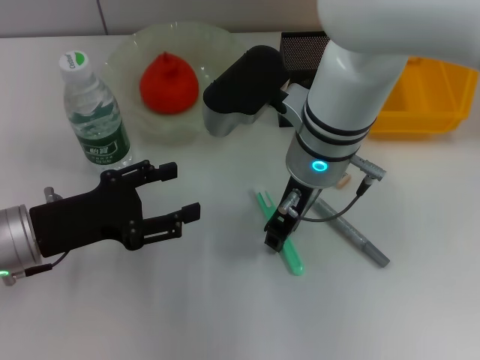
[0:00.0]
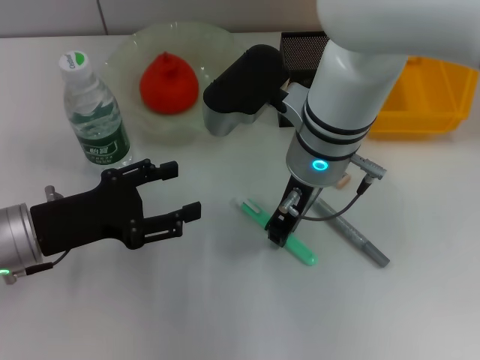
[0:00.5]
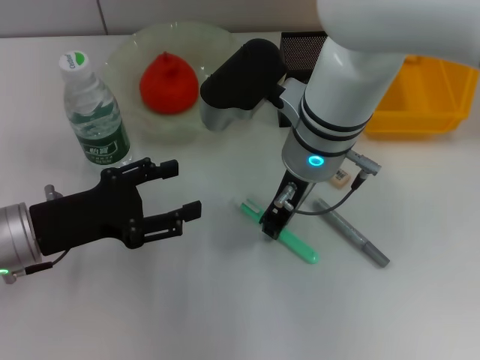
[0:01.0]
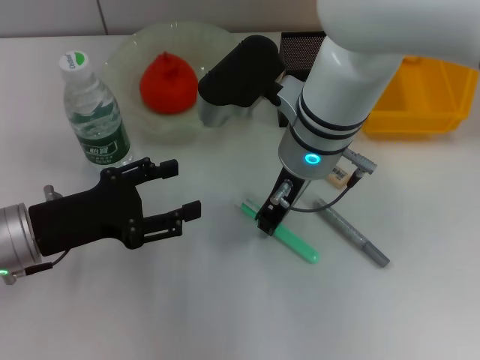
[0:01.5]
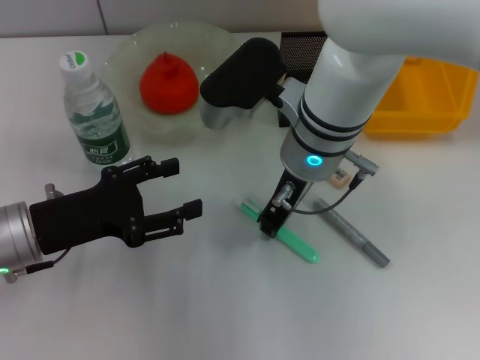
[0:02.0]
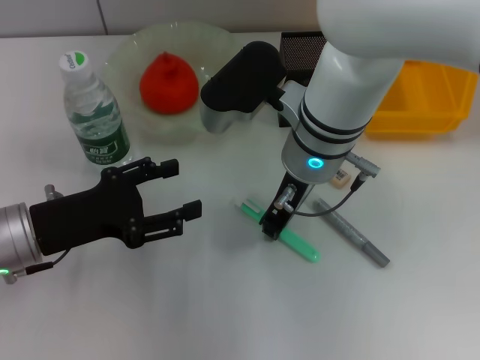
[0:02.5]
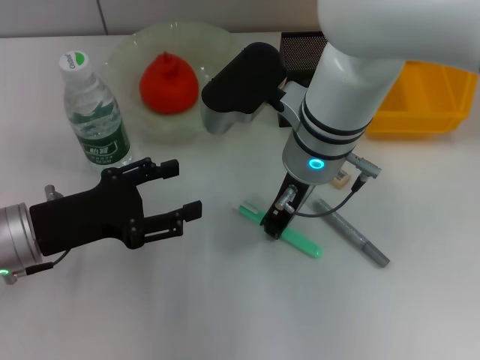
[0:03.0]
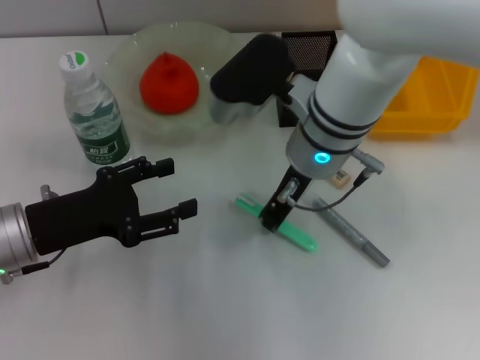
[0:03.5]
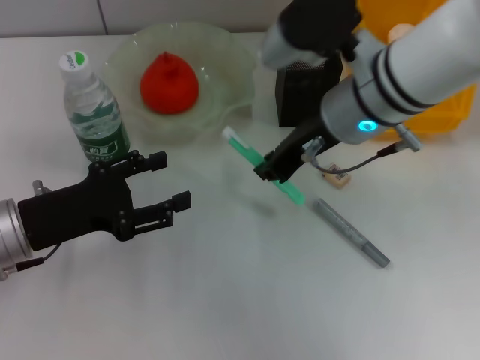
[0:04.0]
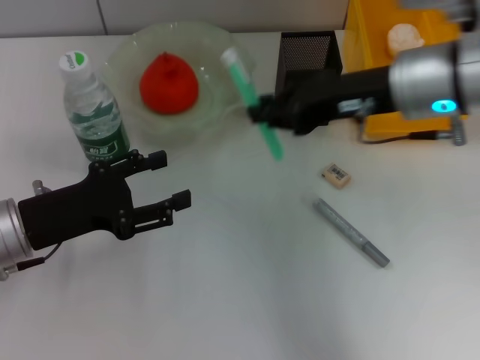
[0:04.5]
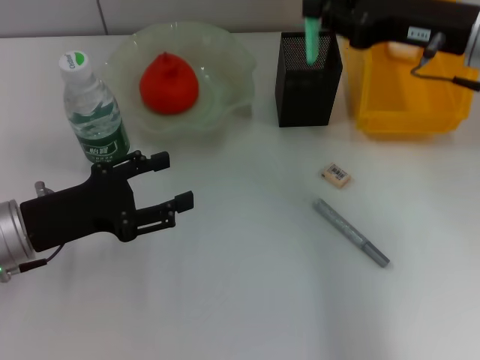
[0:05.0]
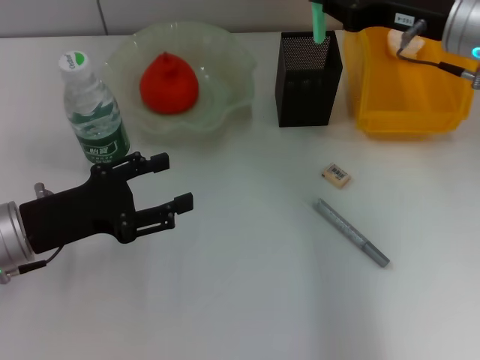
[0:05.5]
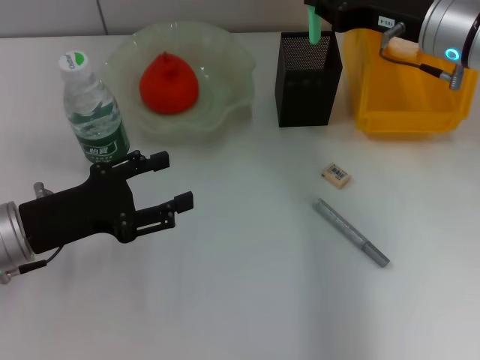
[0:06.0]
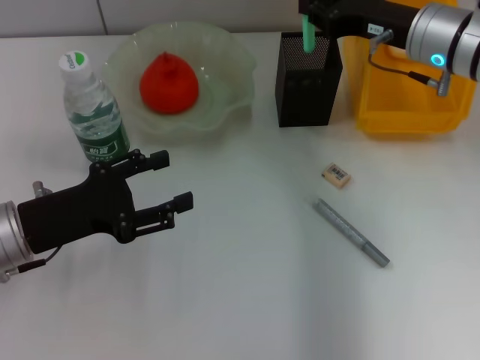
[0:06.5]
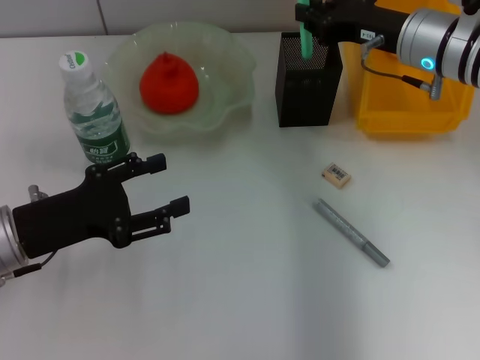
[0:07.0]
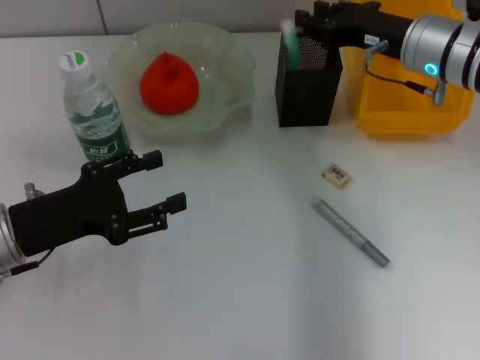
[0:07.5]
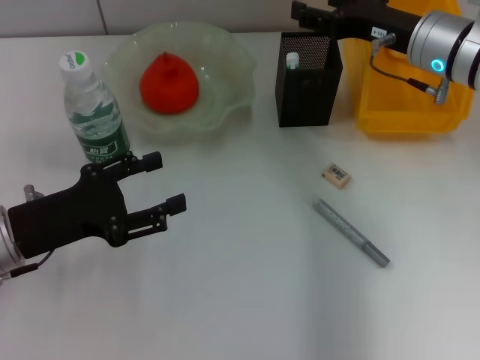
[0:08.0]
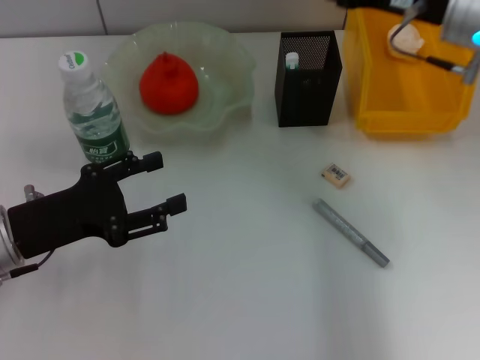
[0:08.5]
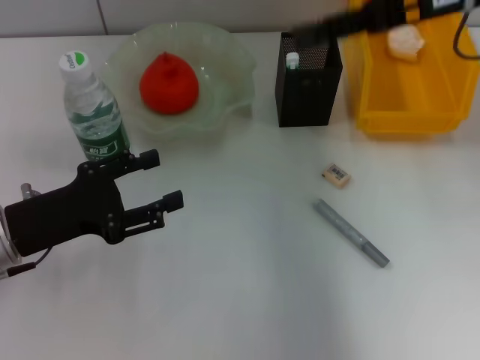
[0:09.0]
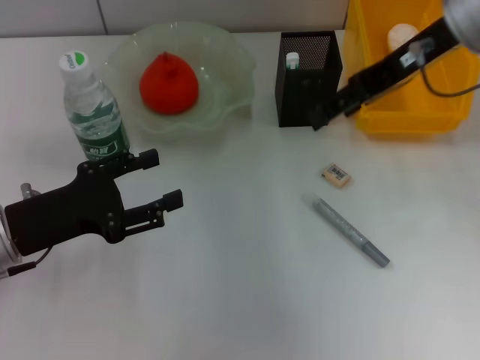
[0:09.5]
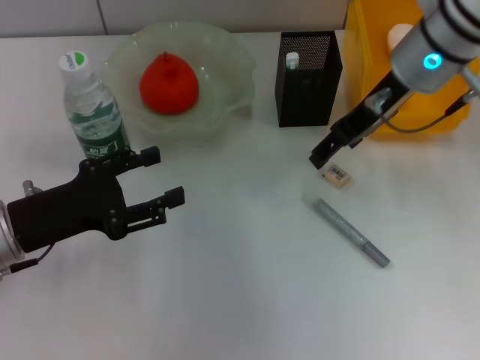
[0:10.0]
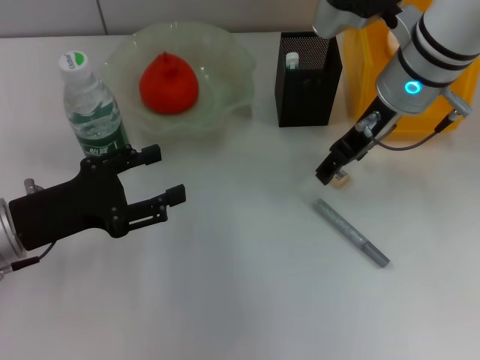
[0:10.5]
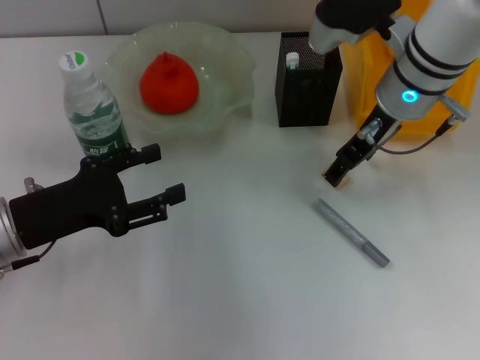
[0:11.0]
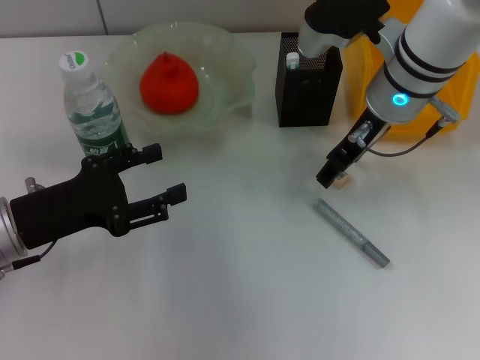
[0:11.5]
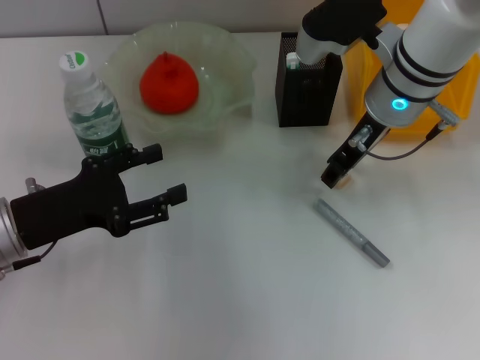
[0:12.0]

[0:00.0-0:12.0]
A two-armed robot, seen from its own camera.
Step, 0:00.0 to 0:03.0: Grab the blue utility knife with the right hand.
Step, 0:03.5 to 0:07.5: Place the blue utility knife into the pen holder with the right hand.
0:00.0 to 0:02.0: Both grippers stay about where they are.
0:02.0 to 0:04.0: The right gripper heads to the right, covering some 5 cm.
0:04.0 to 0:06.0: The right gripper is displaced to the right and forward by about 10 cm.
0:06.0 to 0:08.0: The right gripper opens its fingers.
0:08.0 to 0:10.0: The right gripper shifts about 5 cm upward.
0:10.0 to 0:12.0: The right gripper closes.

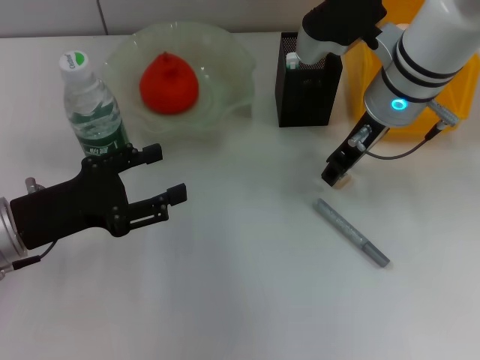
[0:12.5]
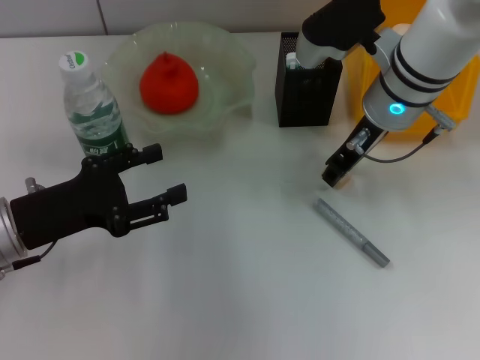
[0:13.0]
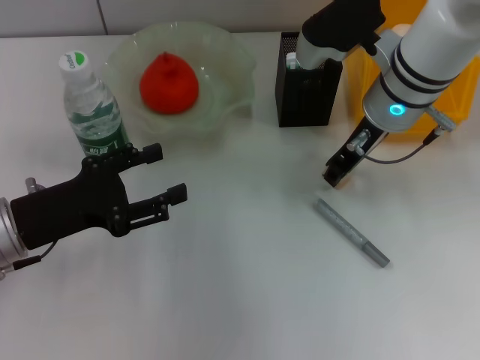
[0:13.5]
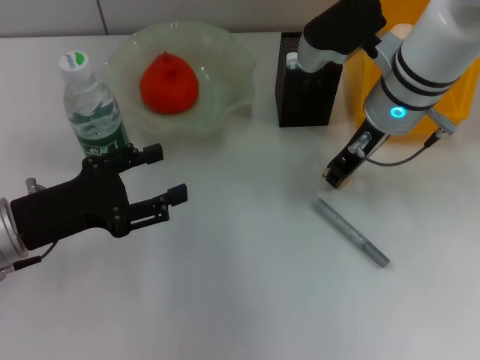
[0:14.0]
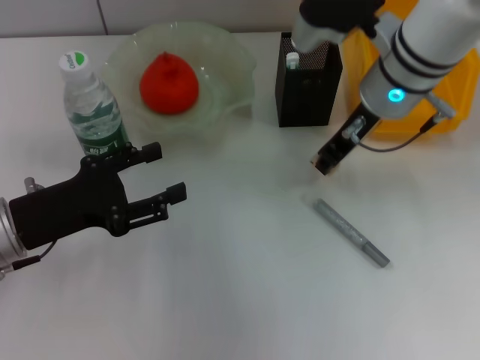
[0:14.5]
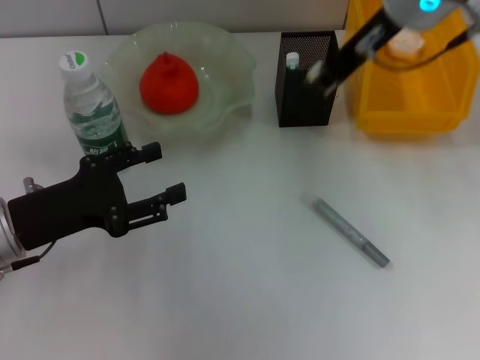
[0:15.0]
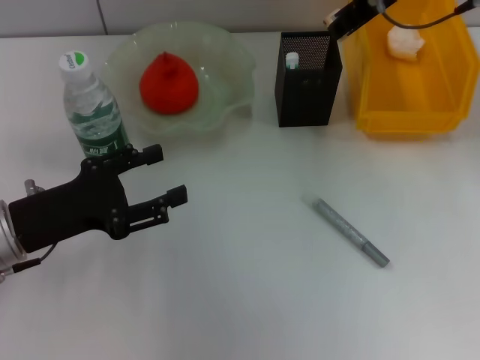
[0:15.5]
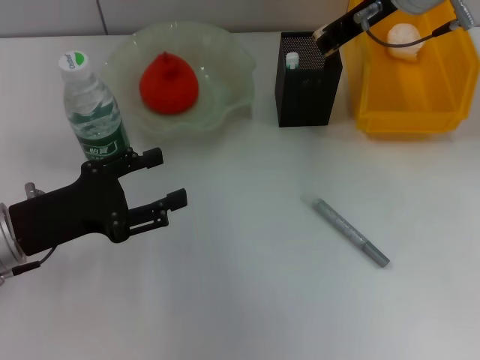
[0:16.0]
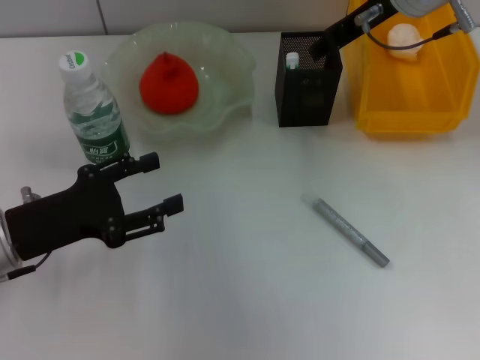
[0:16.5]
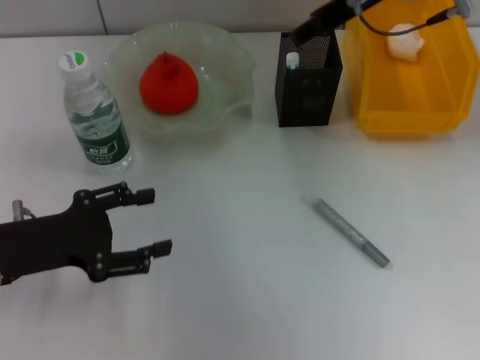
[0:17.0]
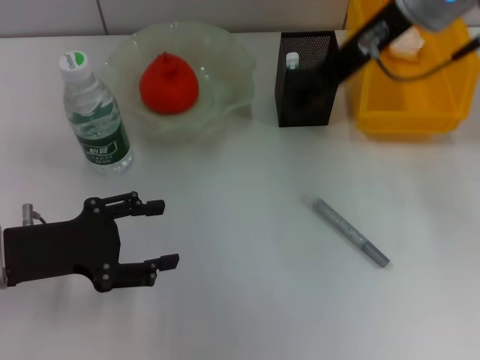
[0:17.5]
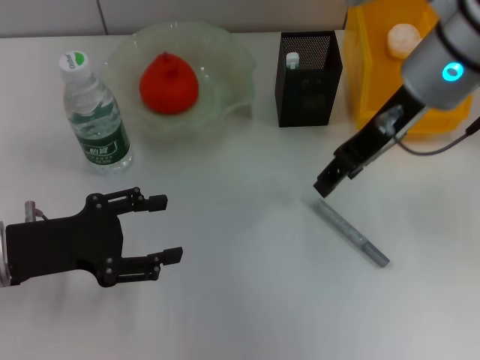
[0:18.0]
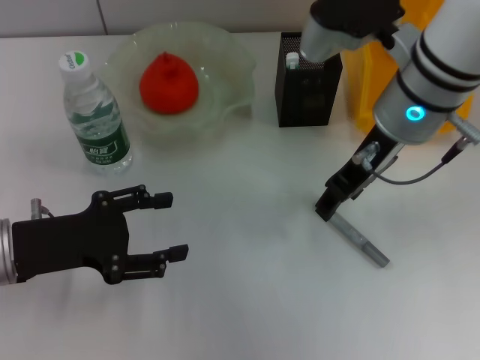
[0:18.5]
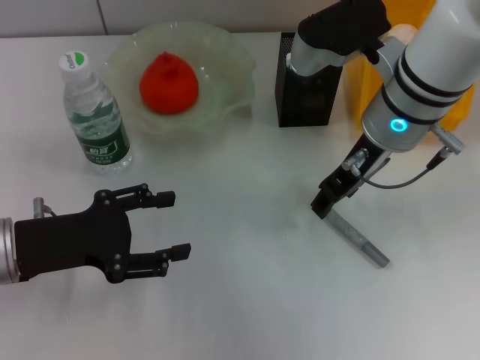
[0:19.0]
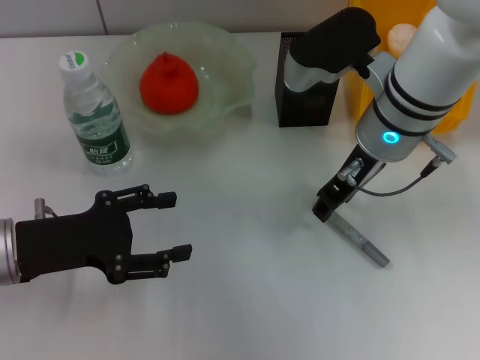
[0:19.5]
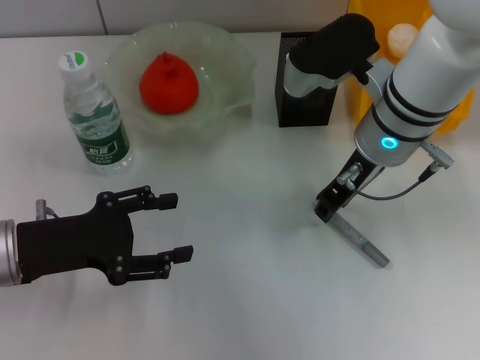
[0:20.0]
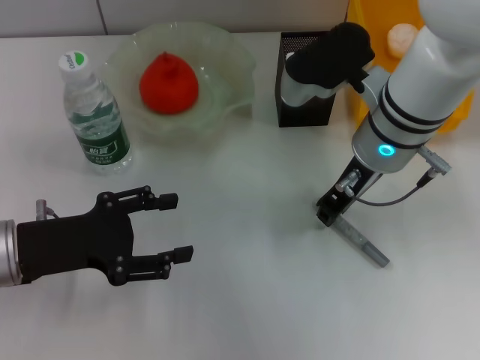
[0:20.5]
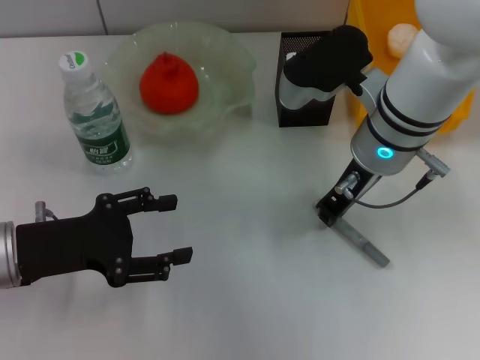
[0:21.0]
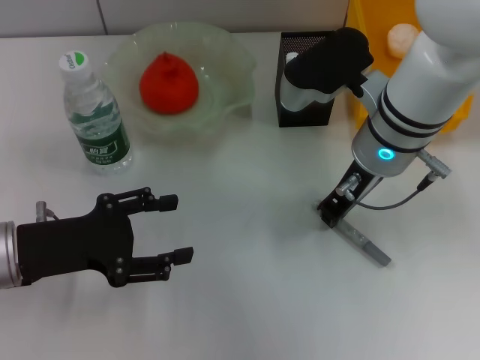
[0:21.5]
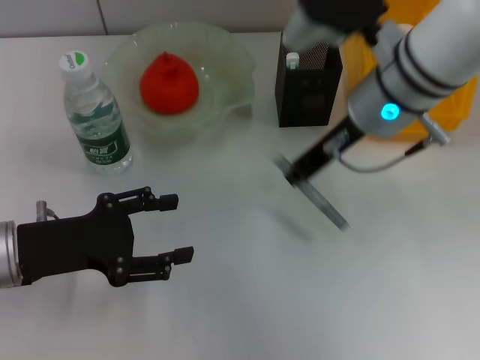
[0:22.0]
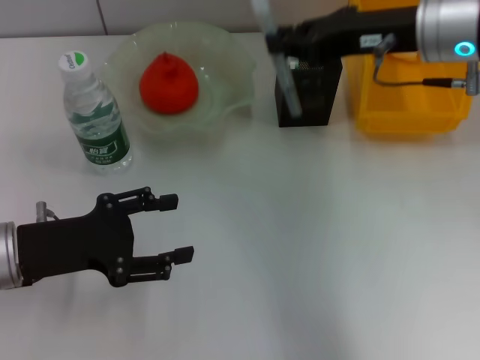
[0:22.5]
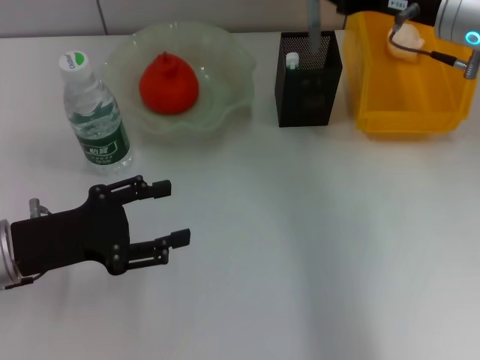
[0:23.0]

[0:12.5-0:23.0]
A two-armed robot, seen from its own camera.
Step, 0:14.0 to 0:16.5: Put the eraser into the pen holder with the right hand.
Step, 0:17.0 to 0:21.0: Grab the gray glue with the right hand.
0:12.5 to 0:14.5: The right gripper closes its fingers.
0:14.5 to 0:16.5: The right gripper heads upward, covering about 5 cm.
0:16.5 to 0:19.0: The right gripper moves backward and downward, approximately 10 cm.
0:19.0 to 0:21.0: The right gripper closes up.
0:21.0 to 0:23.0: The right gripper heads to the right, covering some 10 cm.

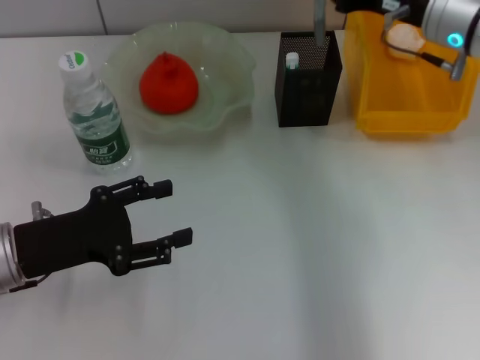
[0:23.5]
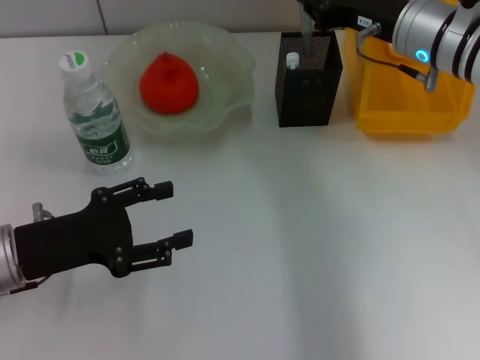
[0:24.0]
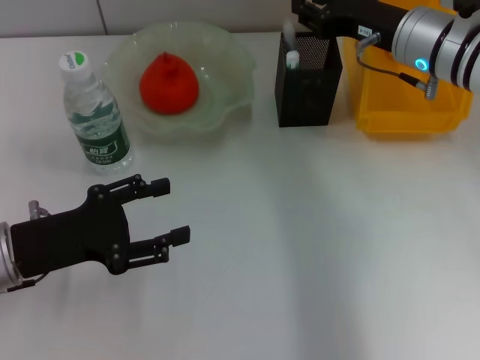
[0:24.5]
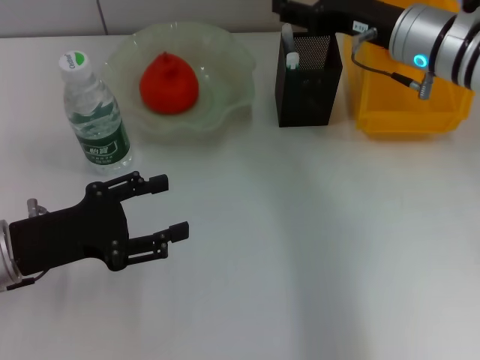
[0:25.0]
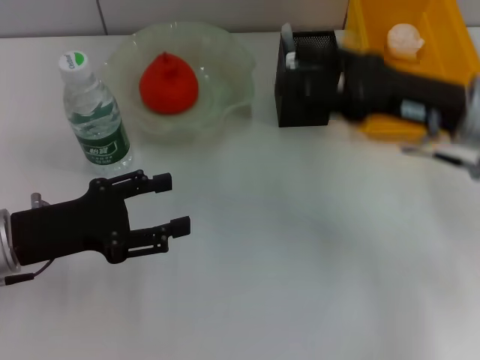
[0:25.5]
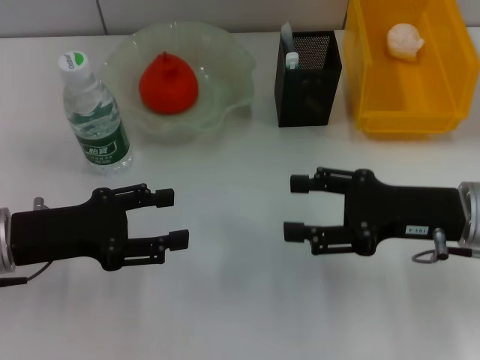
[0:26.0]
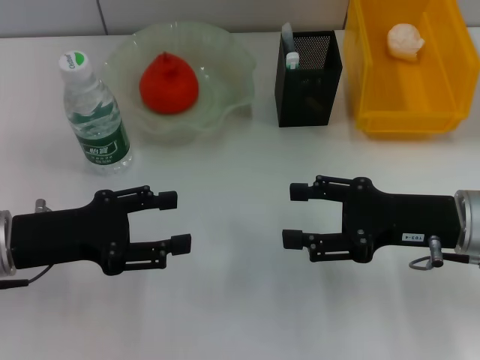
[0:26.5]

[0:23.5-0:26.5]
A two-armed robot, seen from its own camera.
0:23.5 to 0:25.0: The right gripper opens up.
0:25.0 to 0:26.5: The right gripper moves backward and downward, roughly 15 cm.
